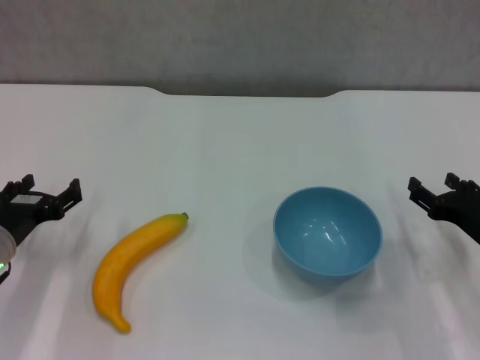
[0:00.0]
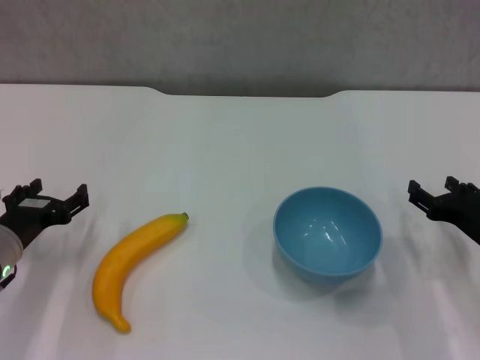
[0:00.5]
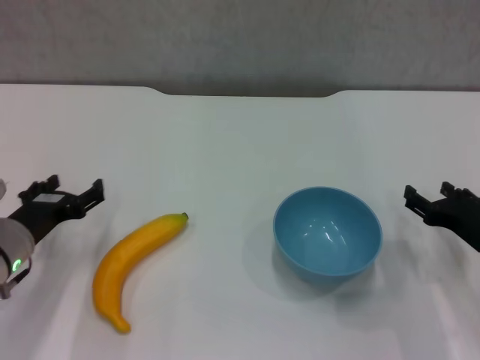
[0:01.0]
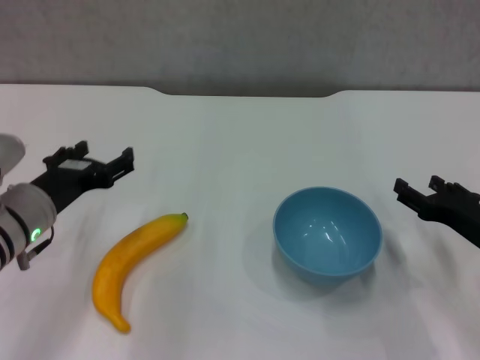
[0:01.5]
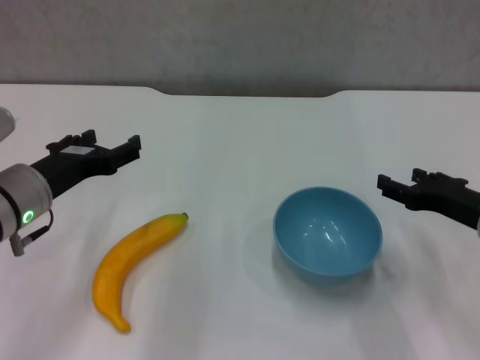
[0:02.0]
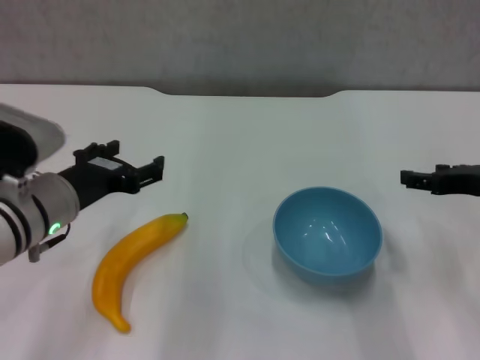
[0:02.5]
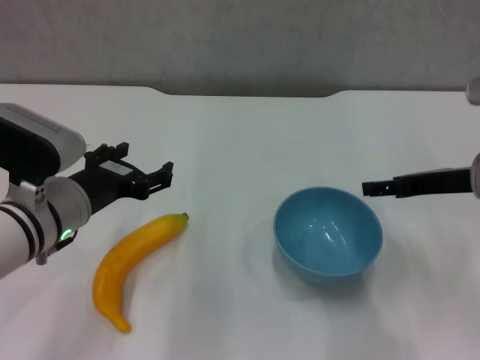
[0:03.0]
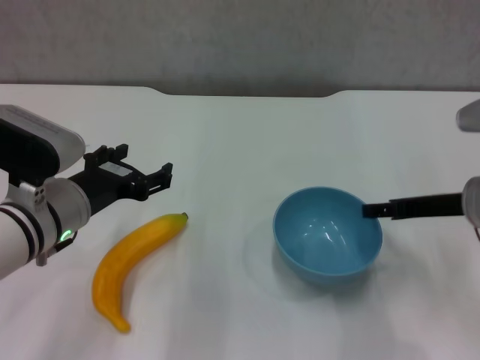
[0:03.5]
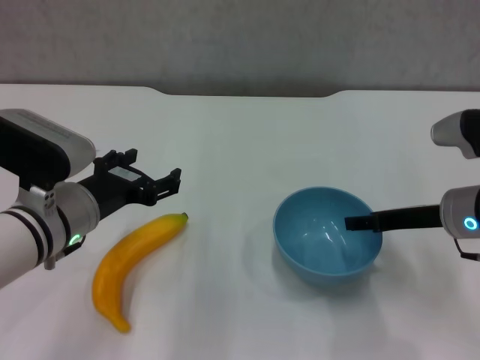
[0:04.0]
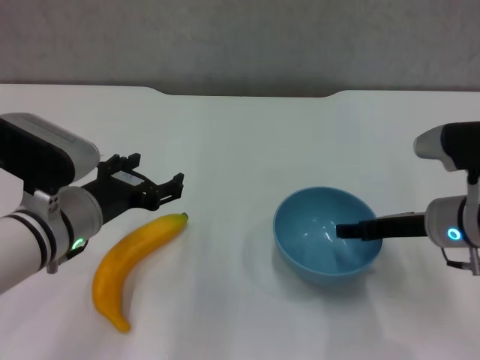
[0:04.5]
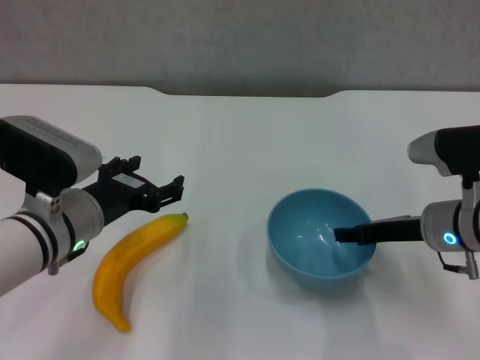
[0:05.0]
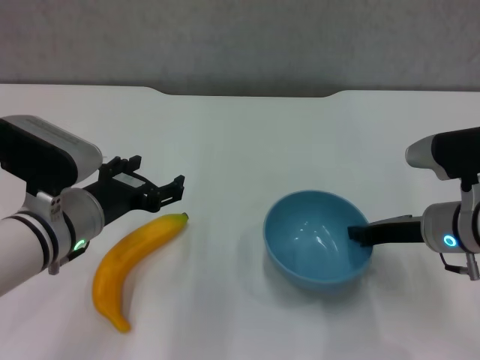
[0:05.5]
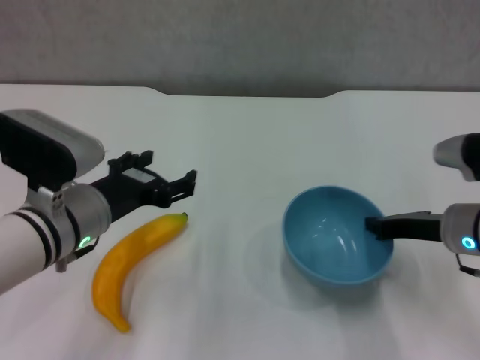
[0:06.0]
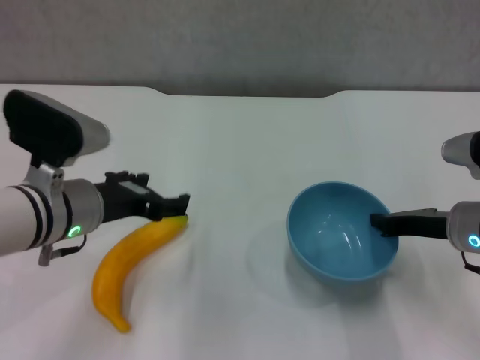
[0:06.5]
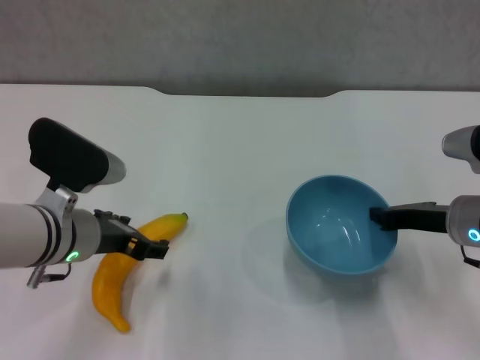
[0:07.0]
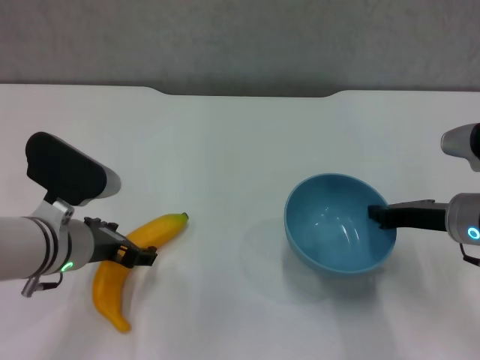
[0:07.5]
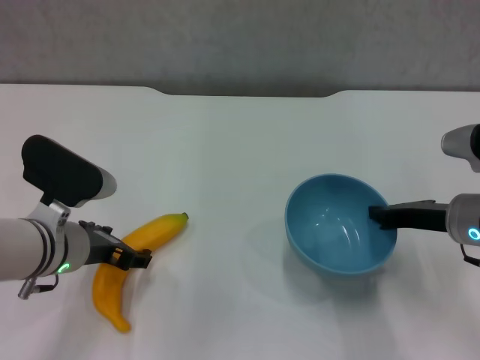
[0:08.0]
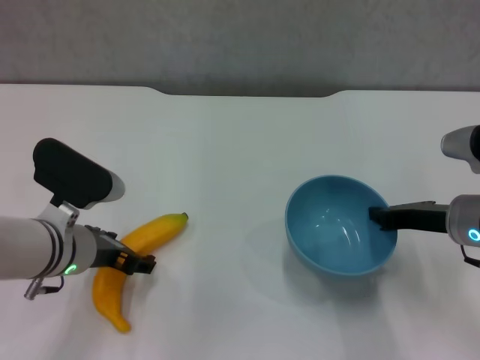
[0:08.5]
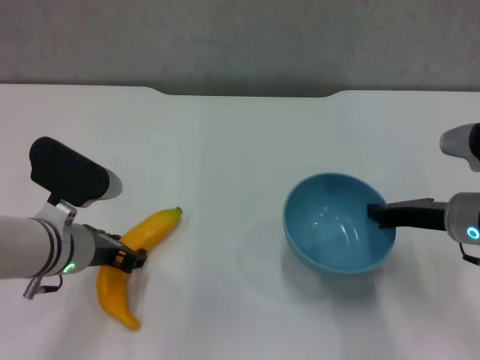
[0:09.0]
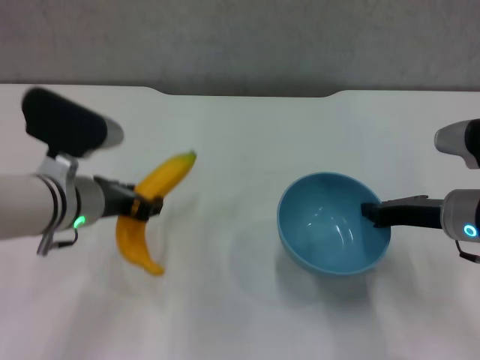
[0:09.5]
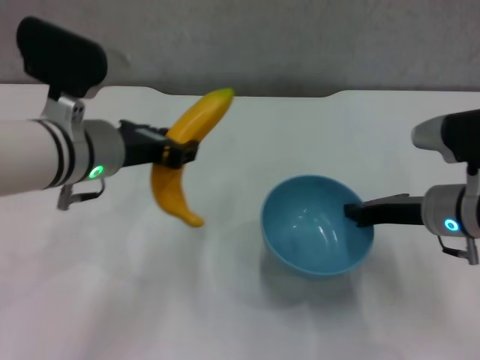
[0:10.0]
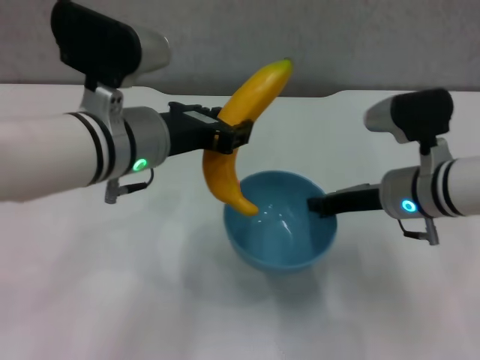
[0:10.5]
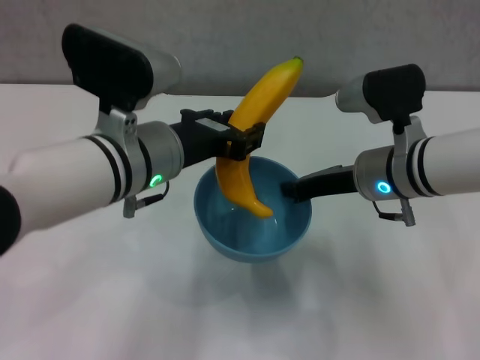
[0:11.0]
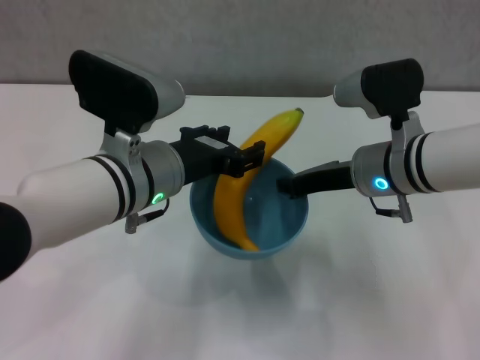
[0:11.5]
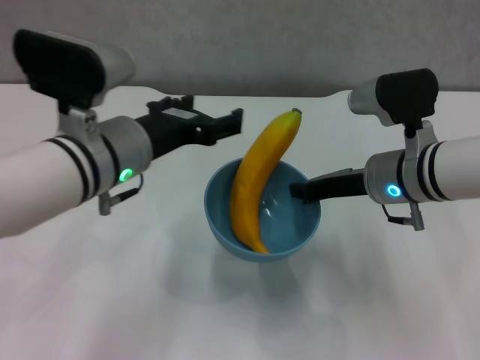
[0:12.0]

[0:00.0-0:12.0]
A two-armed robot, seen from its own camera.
Step, 0:00.0 to 0:05.5: Grasp the blue bowl with right gripper.
Step, 0:06.0 to 0:07.0: Lift the blue bowl with right gripper.
Step, 0:07.5 to 0:09.0: Grasp the banana with left gripper.
Step, 0:09.5 to 0:11.5: Place the banana in the blue bowl with left gripper.
0:00.0 to 0:02.0: The left gripper is displaced upward and to the right by roughly 10 cm. Meanwhile the right gripper heads upward, covering approximately 5 cm.
0:04.0 to 0:06.0: The right gripper closes its fingers.
0:08.0 to 0:10.0: The left gripper is displaced upward by some 10 cm, and closes up.
0:10.0 to 0:12.0: The right gripper goes roughly 5 cm to the left. The left gripper opens.

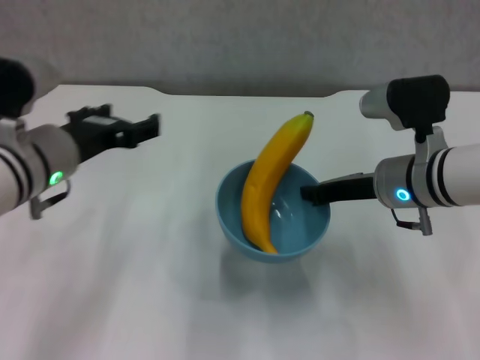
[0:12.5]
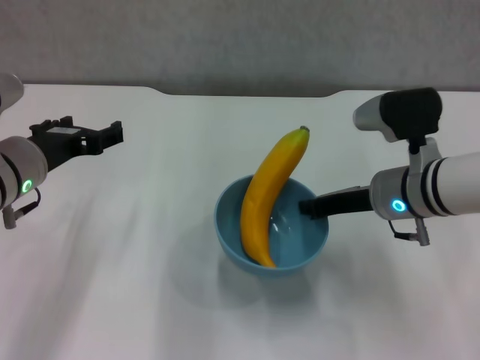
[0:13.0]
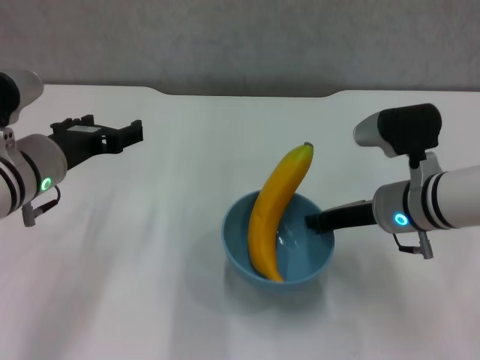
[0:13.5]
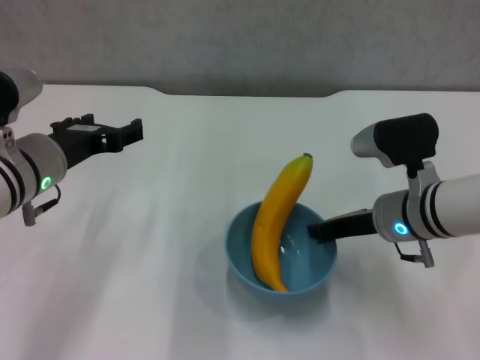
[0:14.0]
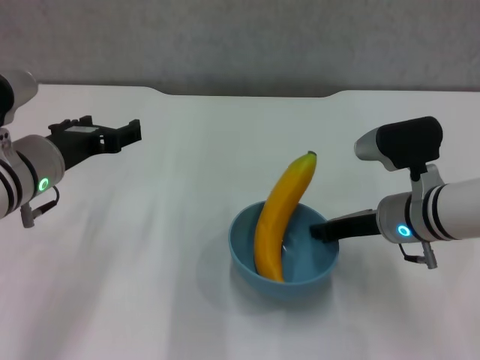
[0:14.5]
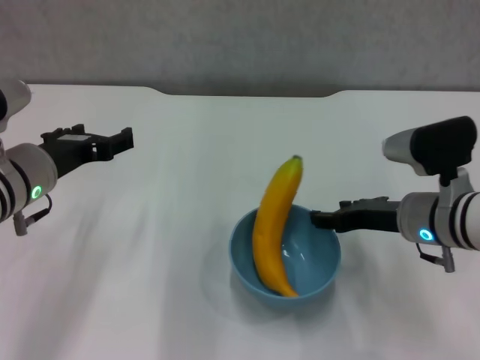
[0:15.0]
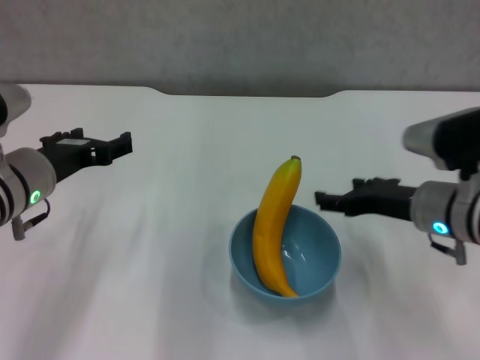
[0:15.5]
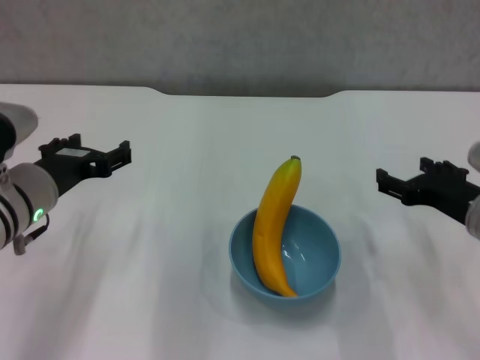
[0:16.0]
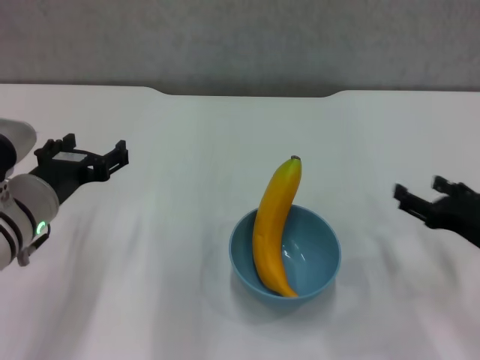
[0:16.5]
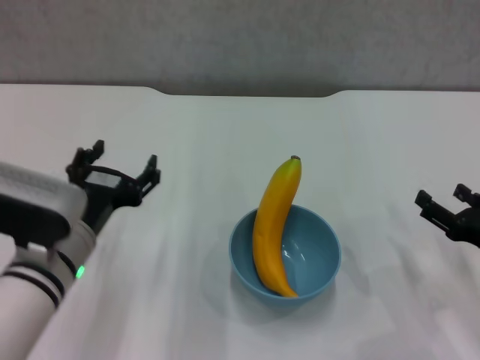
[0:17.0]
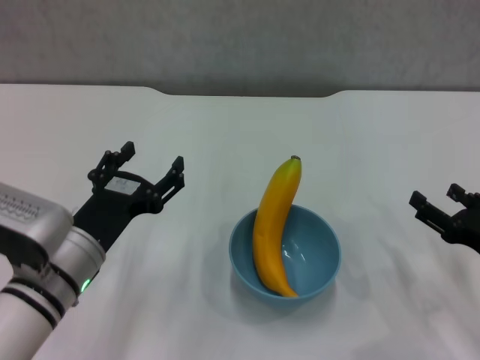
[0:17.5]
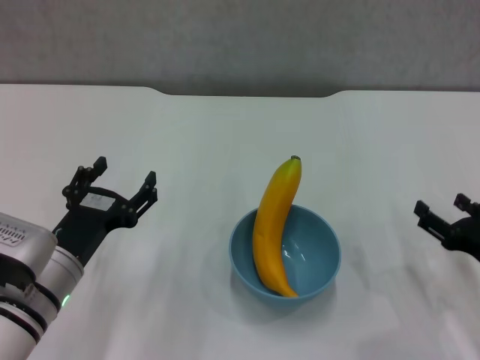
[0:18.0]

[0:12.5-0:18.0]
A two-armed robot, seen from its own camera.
Step, 0:12.5 to 0:15.0: Place the bowl on the table with right gripper.
0:14.5 to 0:16.0: The right gripper goes some 5 cm to the right, and opens up.
0:16.0 to 0:18.0: The left gripper shifts some 10 cm downward and backward. The right gripper moves downward, to the right and backward, some 10 cm.

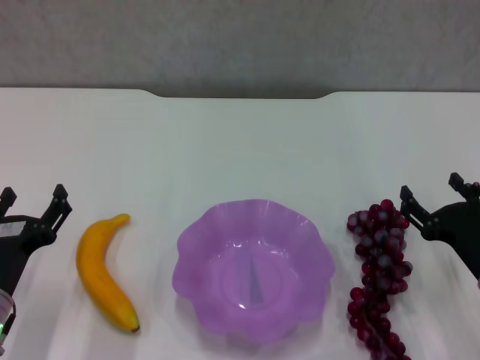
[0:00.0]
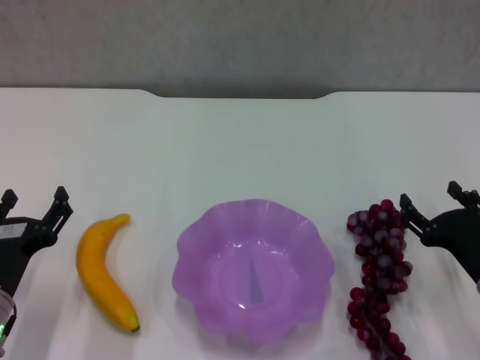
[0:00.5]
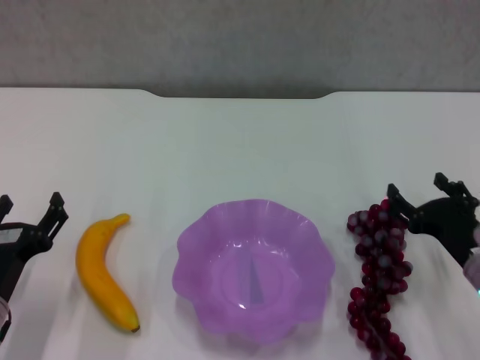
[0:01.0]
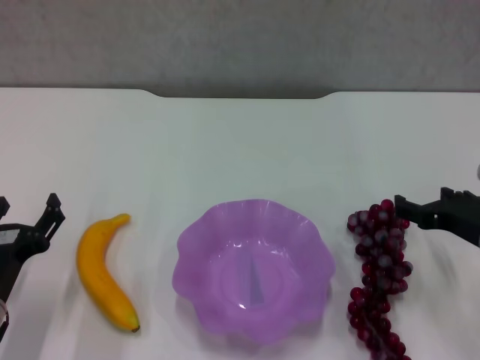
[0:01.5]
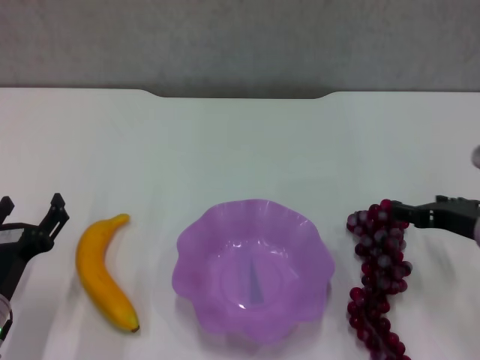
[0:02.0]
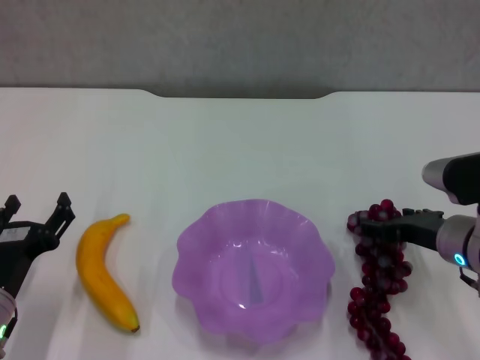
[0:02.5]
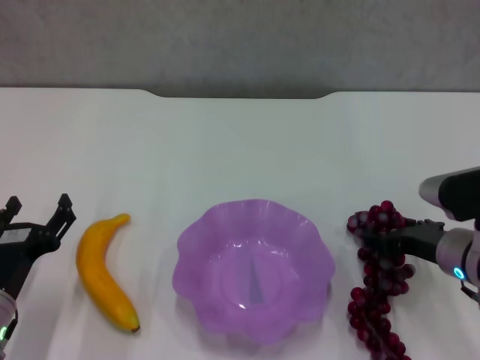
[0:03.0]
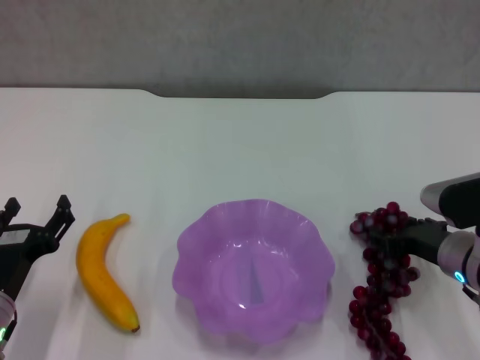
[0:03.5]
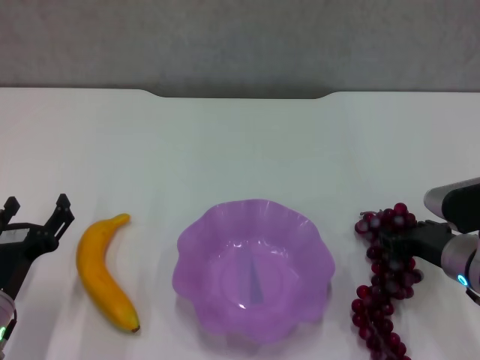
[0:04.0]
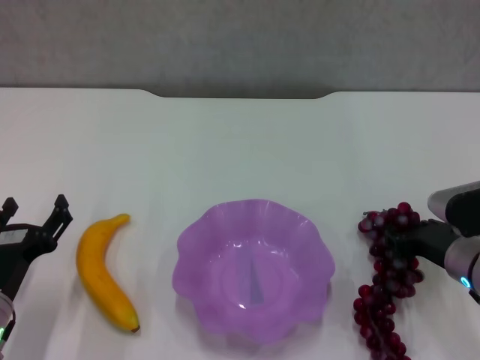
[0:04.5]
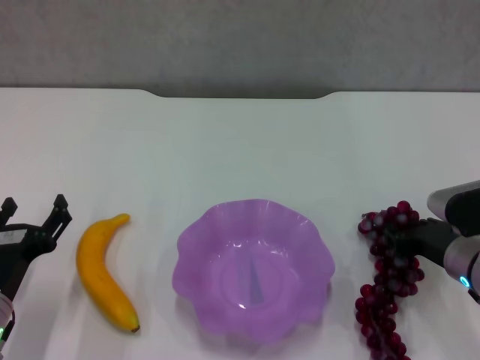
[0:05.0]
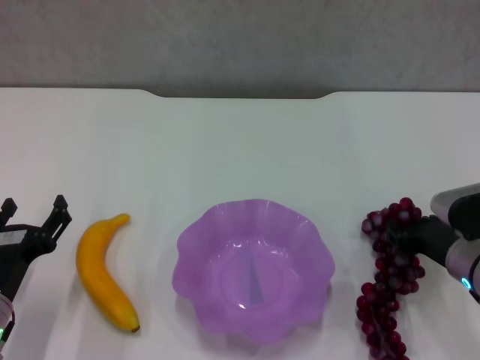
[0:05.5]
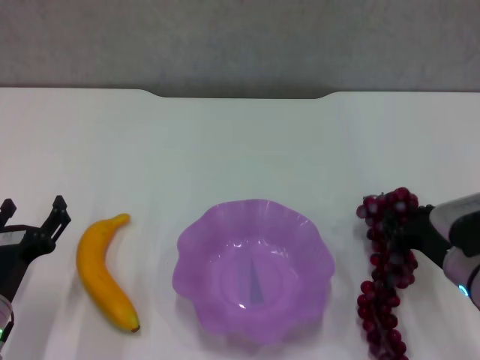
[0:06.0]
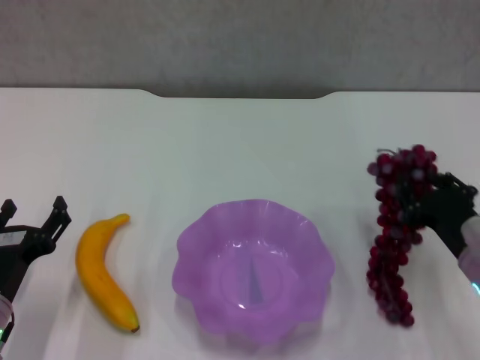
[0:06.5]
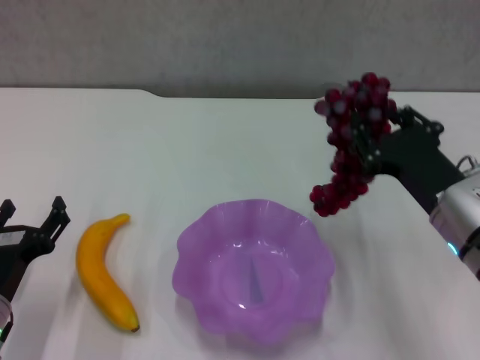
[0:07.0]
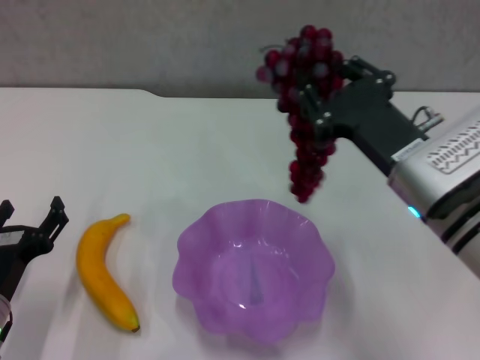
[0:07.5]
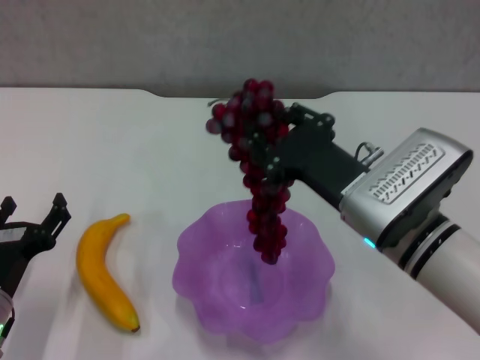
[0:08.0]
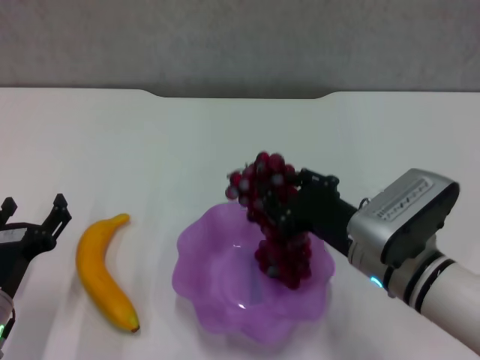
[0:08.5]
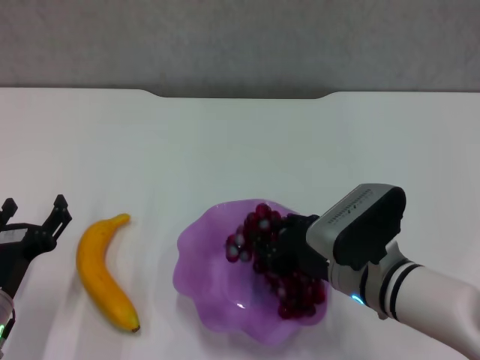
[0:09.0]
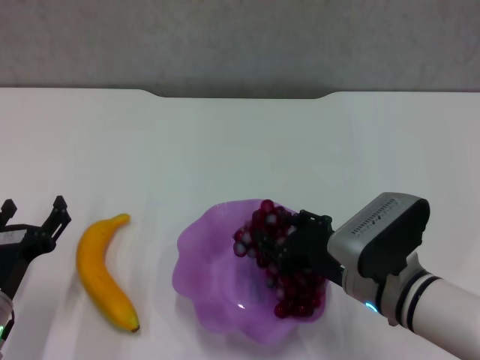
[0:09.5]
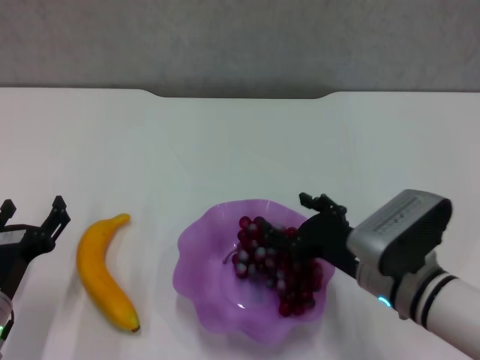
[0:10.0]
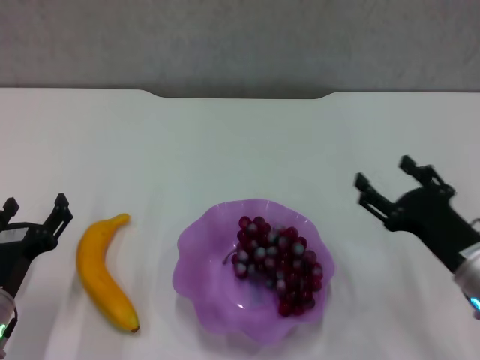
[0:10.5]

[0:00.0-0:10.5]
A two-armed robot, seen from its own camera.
Step, 0:00.0 to 0:04.0: Grasp the grape with right gripper.
Step, 0:04.5 to 0:10.0: Place the grape in the purple plate with right gripper.
0:00.0 to 0:02.0: The right gripper heads upward and forward, covering roughly 10 cm.
0:02.0 to 0:04.0: The right gripper goes roughly 5 cm downward, and closes up.
0:06.5 to 0:08.5: The right gripper moves to the left, approximately 10 cm.
0:08.5 to 0:10.5: The right gripper travels to the right by approximately 10 cm, and opens.
